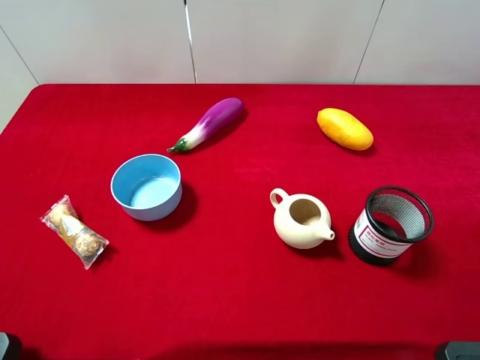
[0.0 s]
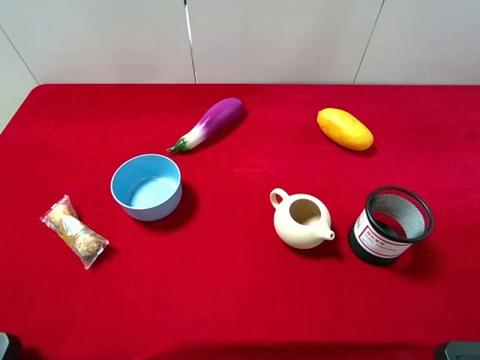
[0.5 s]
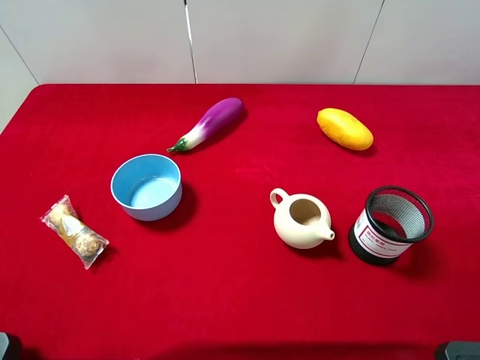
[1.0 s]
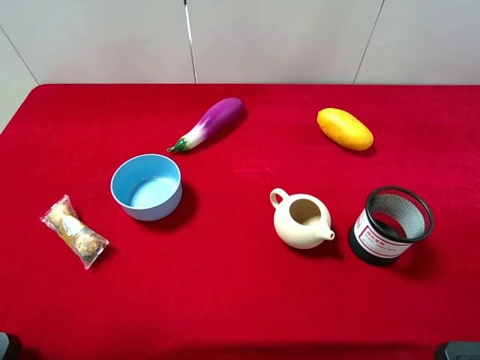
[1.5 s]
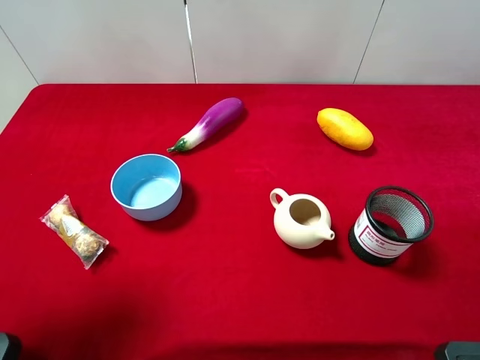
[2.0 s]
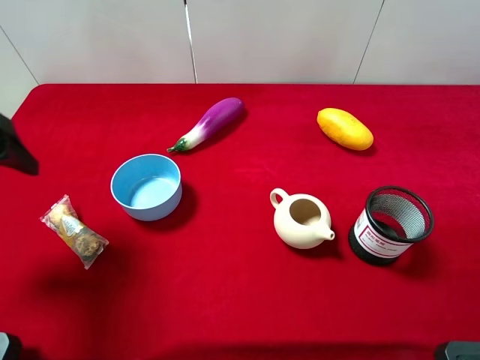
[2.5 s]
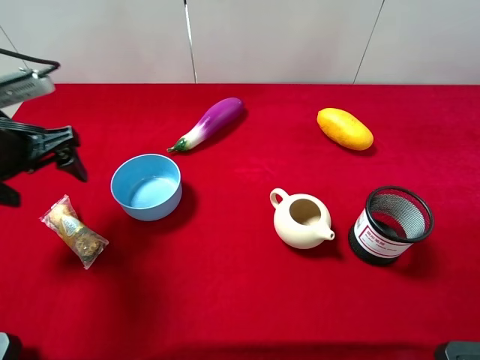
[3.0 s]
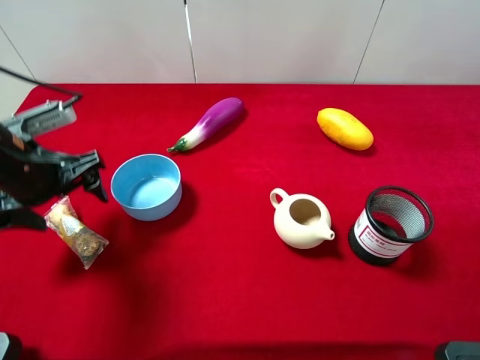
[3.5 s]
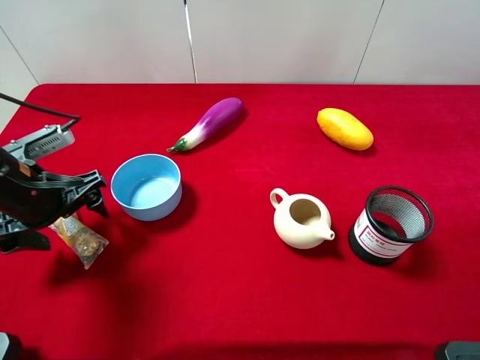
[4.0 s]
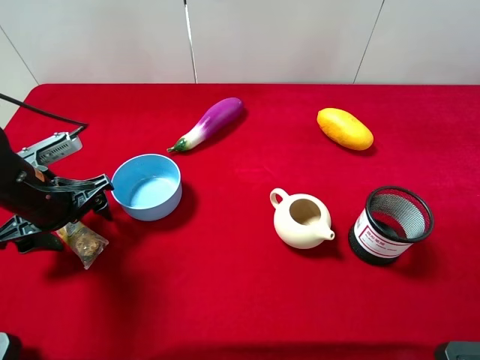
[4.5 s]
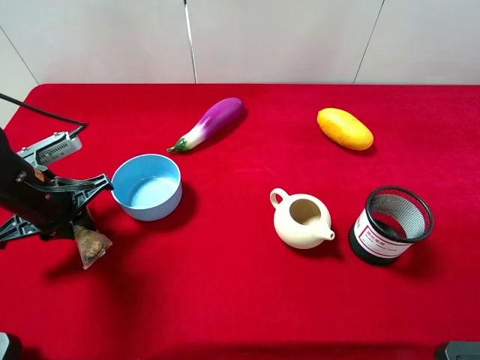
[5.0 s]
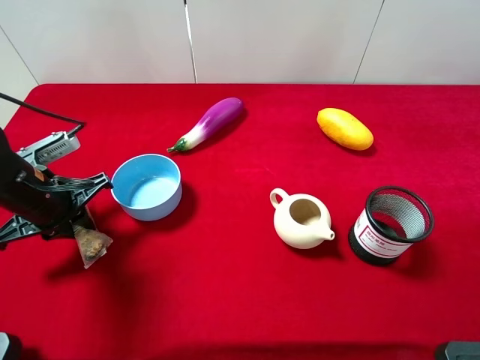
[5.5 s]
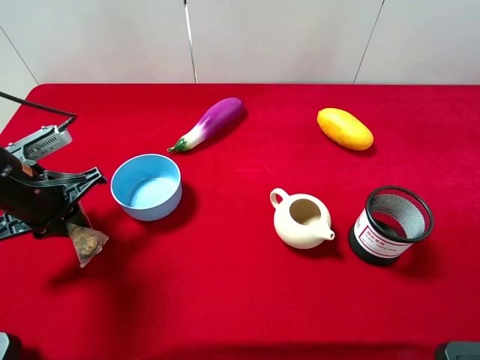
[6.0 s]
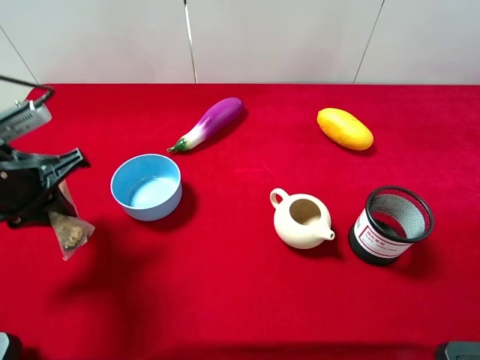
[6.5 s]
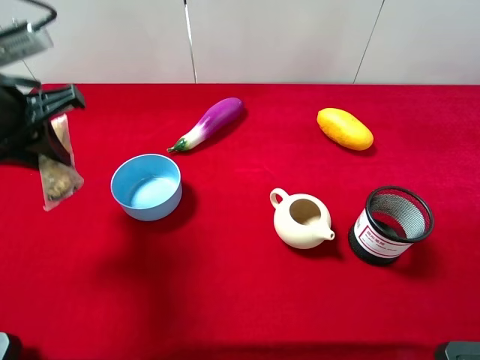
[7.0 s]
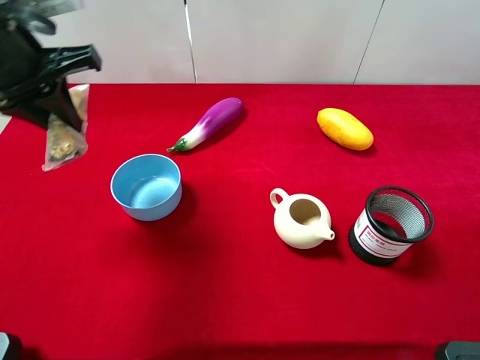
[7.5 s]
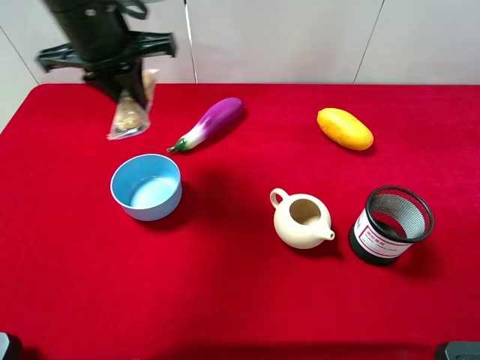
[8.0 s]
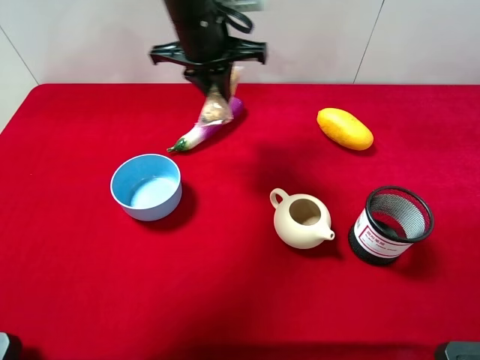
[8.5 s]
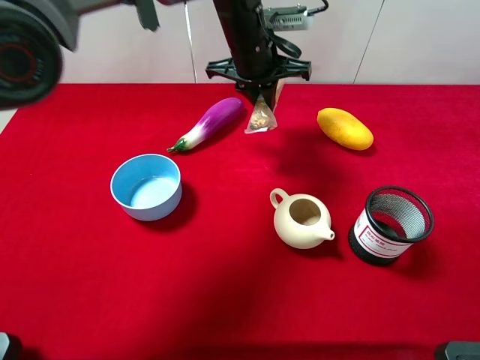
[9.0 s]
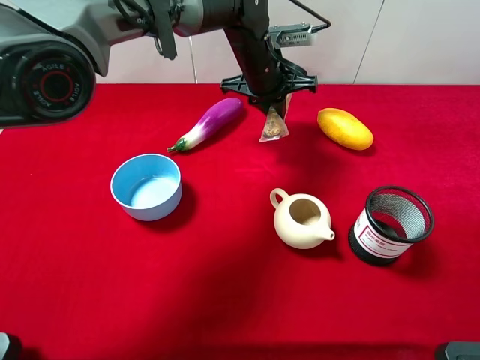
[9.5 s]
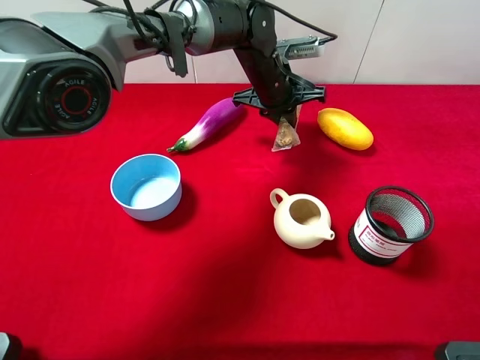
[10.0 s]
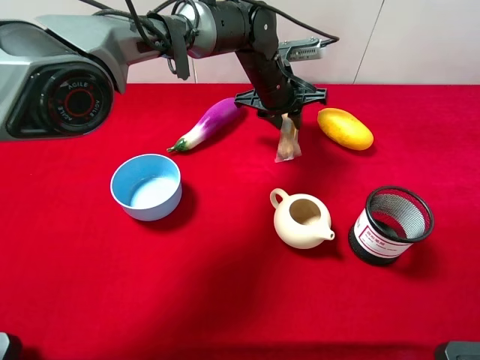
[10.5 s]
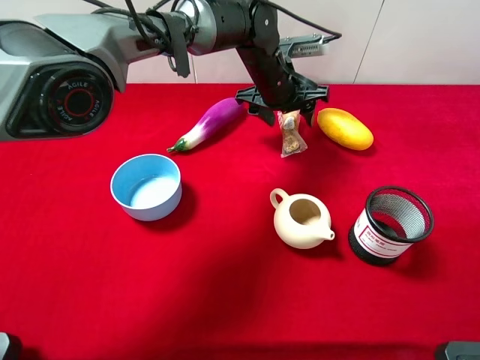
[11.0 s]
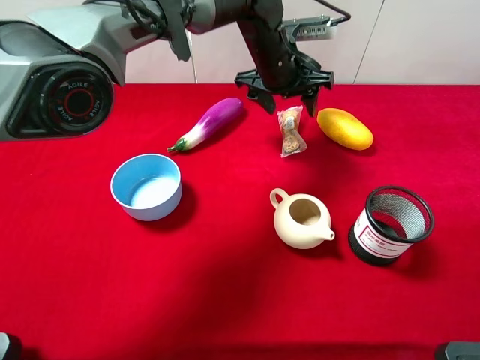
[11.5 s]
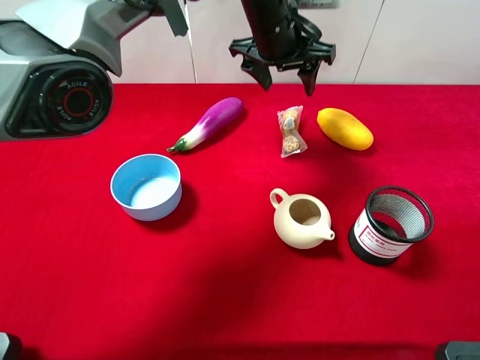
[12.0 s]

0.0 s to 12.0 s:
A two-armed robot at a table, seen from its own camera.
Task of the whole recording: the gripper move the object.
Step, 0.0 to 5.0 s: Grasp the chocolate with the left gripper.
Step, 5.5 to 11.0 s: Place the chocolate on the table with the left gripper.
0.0 to 2.0 s: The left gripper is displaced forward by some 10 cm.
2.0 to 4.0 s: The left gripper goes some 20 cm downward and forward.
4.0 to 6.0 s: The left gripper closes.
6.0 to 8.0 s: The left gripper heads upward, forward and to the right, covering some 20 cm.
8.0 to 10.0 s: The left gripper goes approximately 25 cm to the right, downward and forward.
10.0 to 12.0 s: The left gripper travels upward by approximately 10 cm, and opens up.

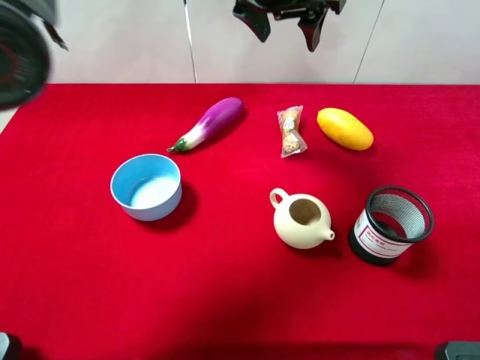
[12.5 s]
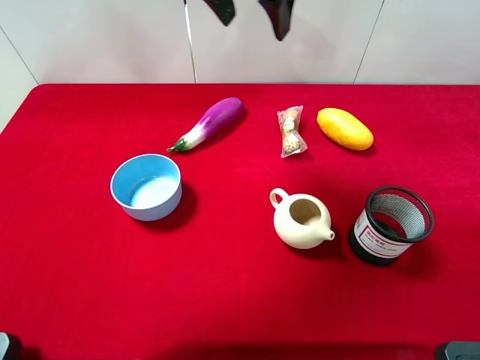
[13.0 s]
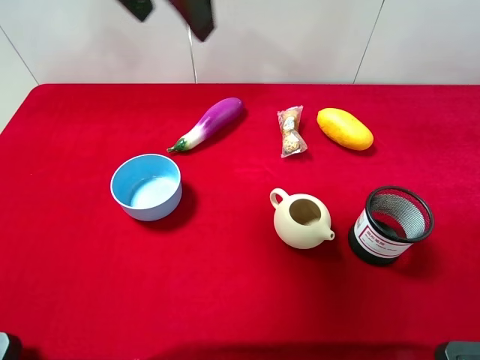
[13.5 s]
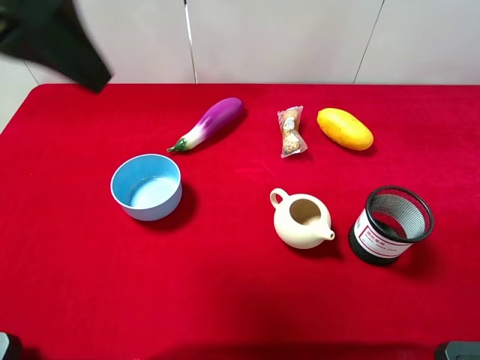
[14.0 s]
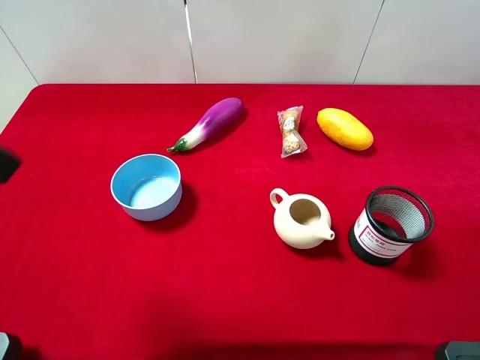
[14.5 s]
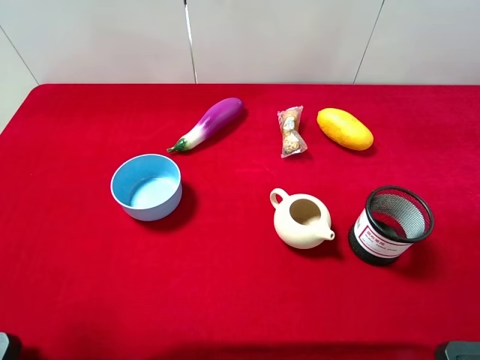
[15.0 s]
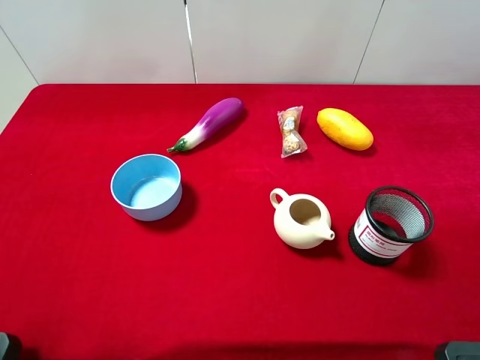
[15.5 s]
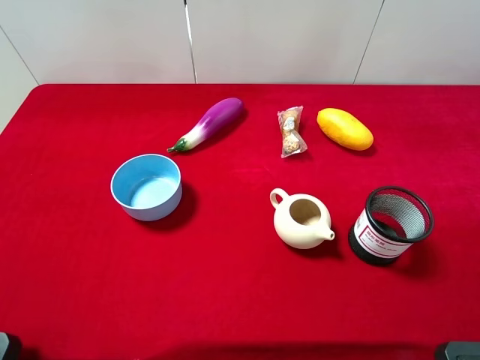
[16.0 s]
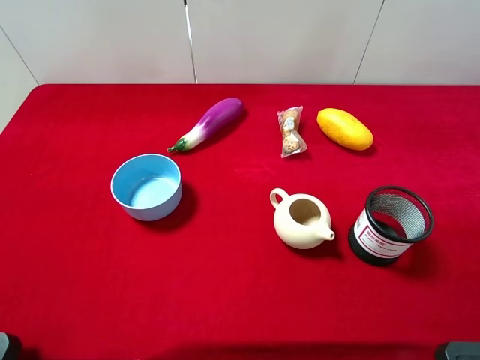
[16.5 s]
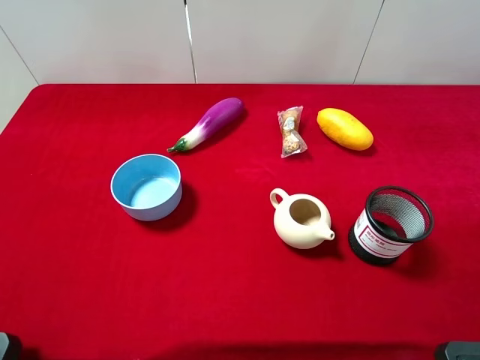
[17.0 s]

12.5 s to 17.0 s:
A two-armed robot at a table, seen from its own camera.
Task of the whole recording: the gripper move the object.
12.5 to 14.5 s: The left gripper shifts some 35 cm backward and to the left.

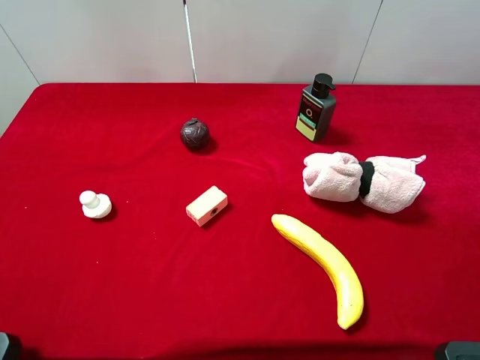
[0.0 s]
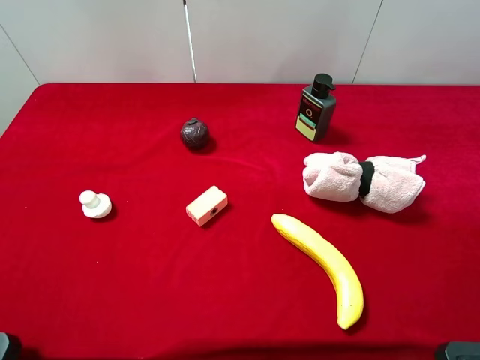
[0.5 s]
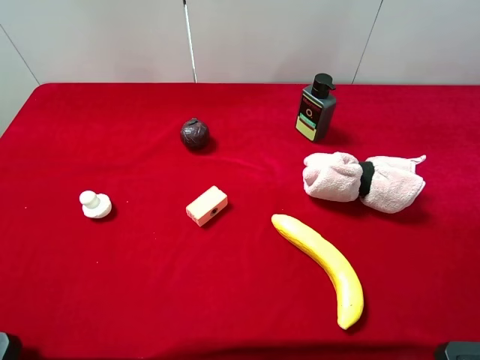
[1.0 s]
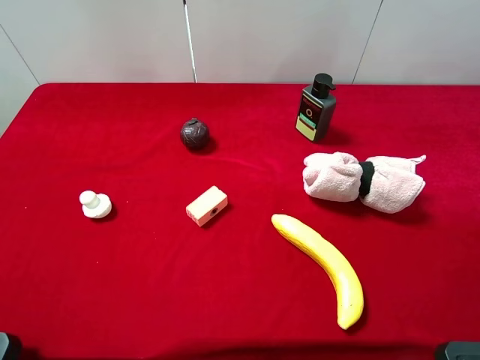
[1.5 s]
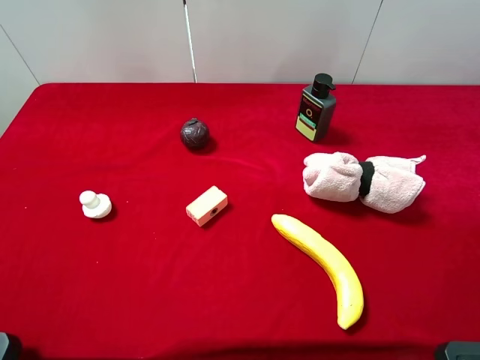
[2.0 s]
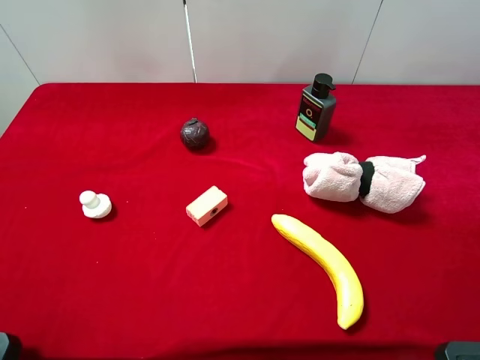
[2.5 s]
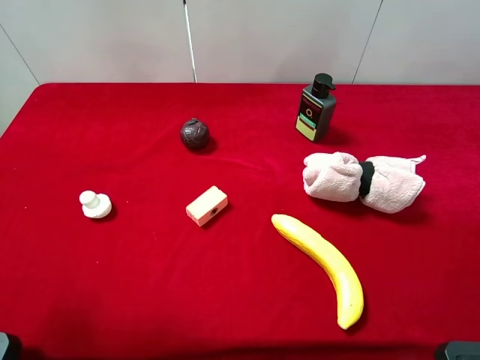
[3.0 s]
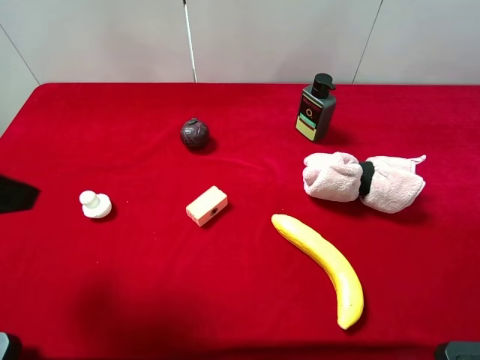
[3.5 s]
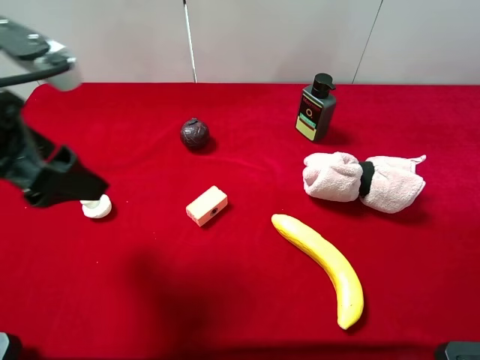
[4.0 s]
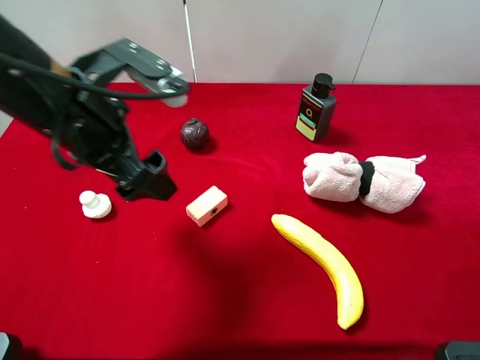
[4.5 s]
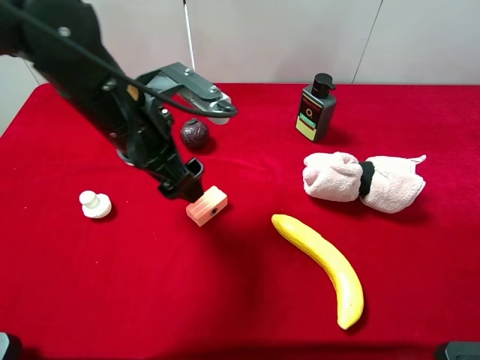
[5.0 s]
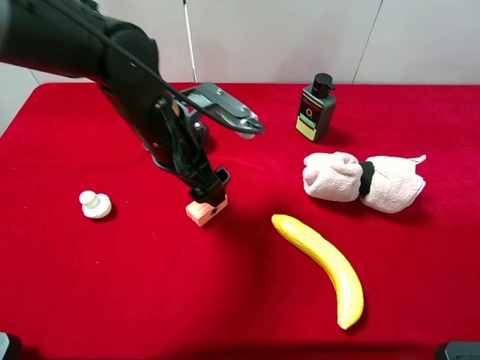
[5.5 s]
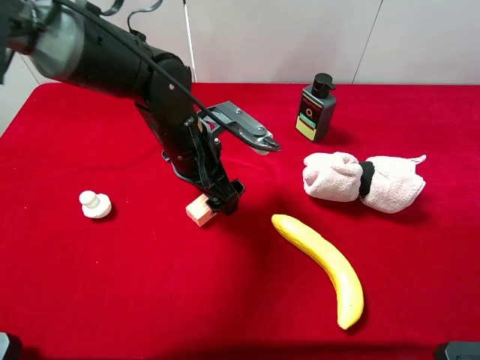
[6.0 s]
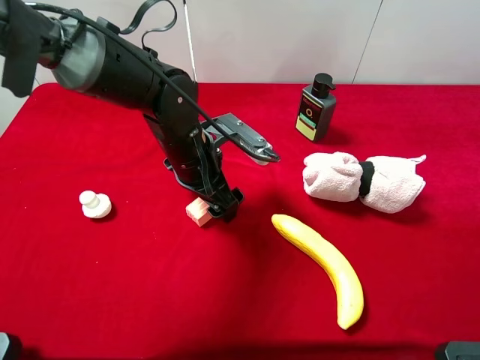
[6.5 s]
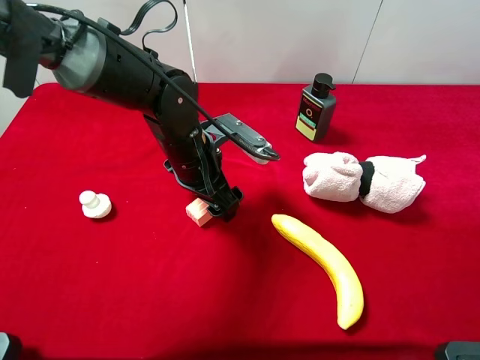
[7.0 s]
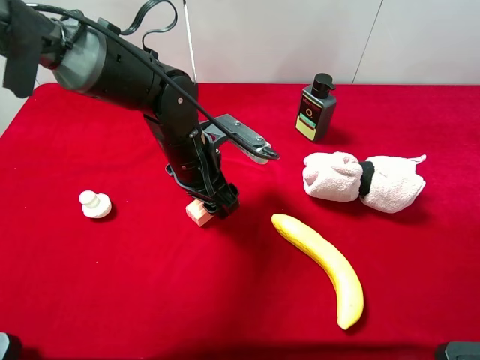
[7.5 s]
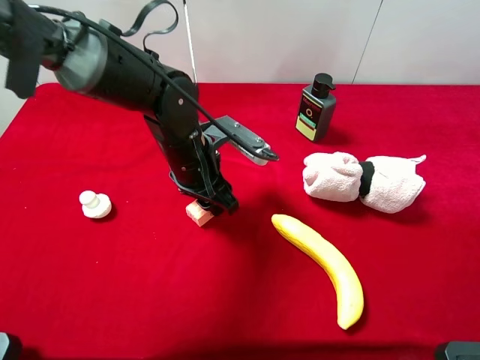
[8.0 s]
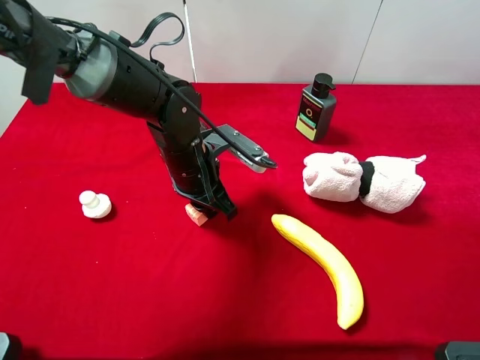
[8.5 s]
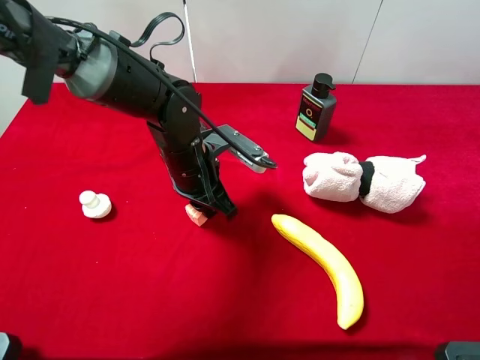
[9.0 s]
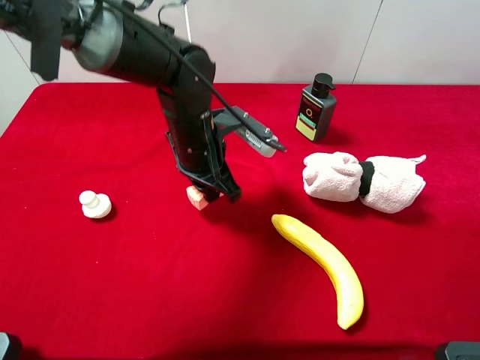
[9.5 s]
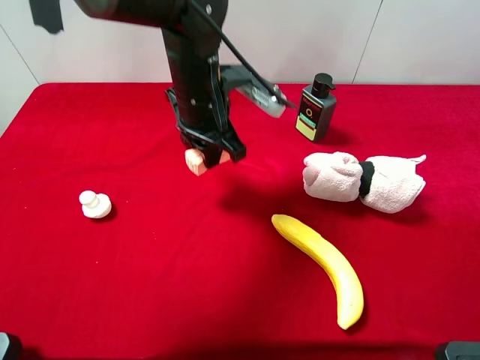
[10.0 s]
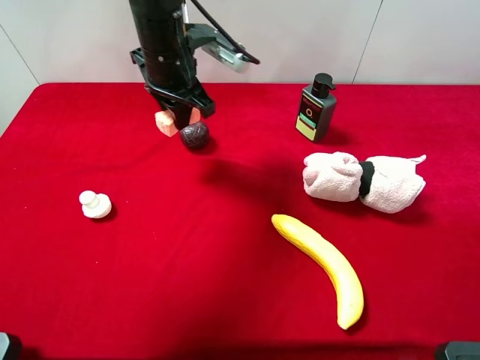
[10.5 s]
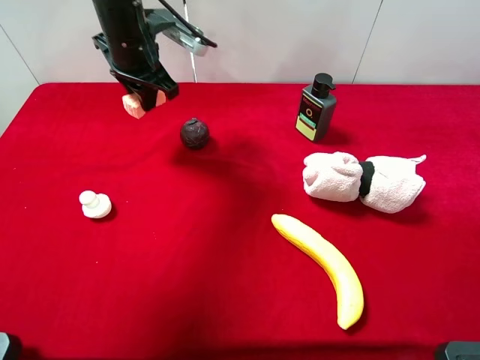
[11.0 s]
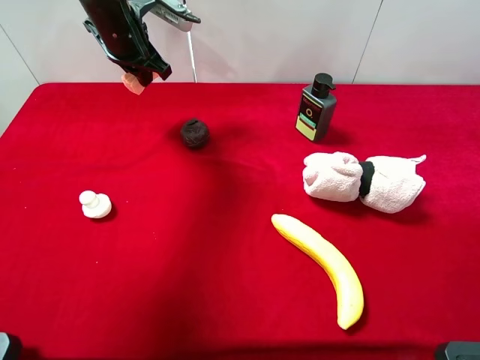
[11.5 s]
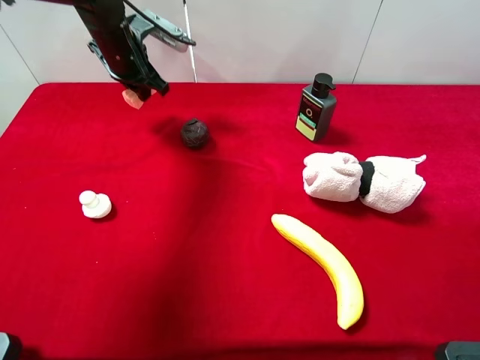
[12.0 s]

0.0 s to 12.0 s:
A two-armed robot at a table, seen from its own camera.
Task of the whole recording: the gripper move the object.
Step, 0.0 to 8.5 s: Grasp the pink cake with the left gripper.
2.0 to 4.0 s: The left gripper moves forward and to the right, roughly 20 cm.
4.0 to 6.0 s: The left gripper moves to the right, downward and forward, some 25 cm.
6.0 to 8.0 s: The left gripper closes its fingers.
8.0 to 10.0 s: The left gripper travels upward by some 5 cm, and closes.
10.0 to 12.0 s: The left gripper moves to the left and forward, some 20 cm.
